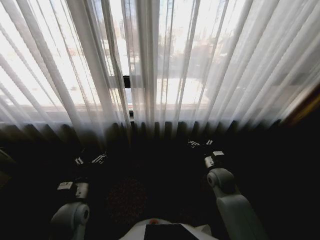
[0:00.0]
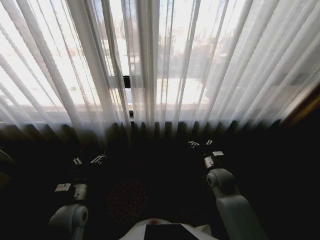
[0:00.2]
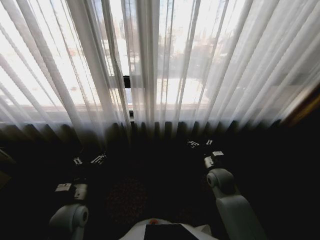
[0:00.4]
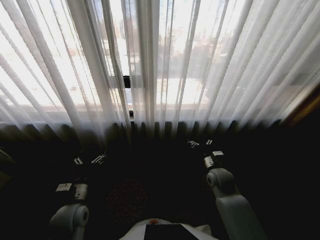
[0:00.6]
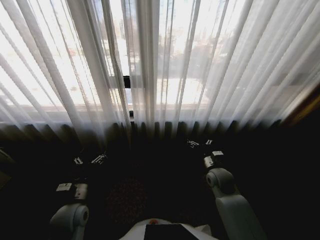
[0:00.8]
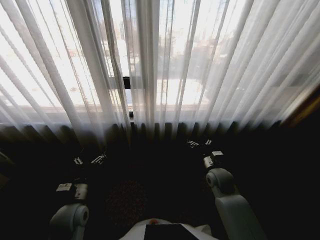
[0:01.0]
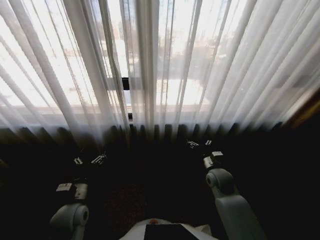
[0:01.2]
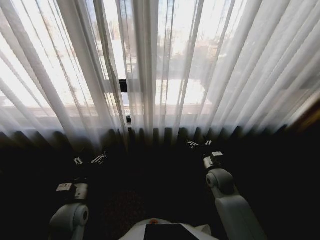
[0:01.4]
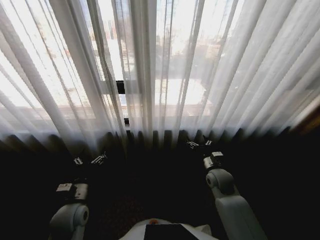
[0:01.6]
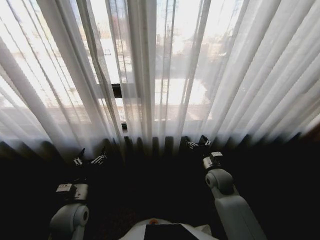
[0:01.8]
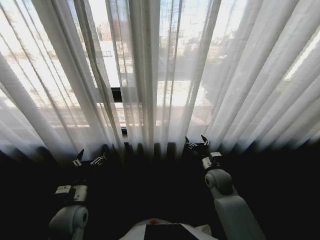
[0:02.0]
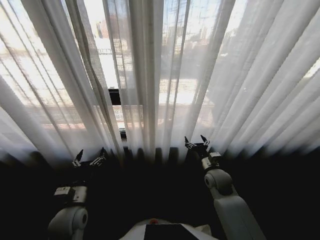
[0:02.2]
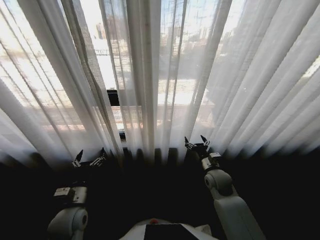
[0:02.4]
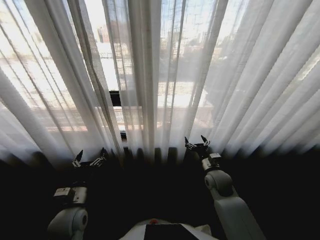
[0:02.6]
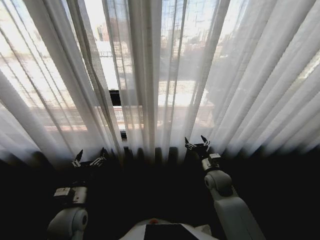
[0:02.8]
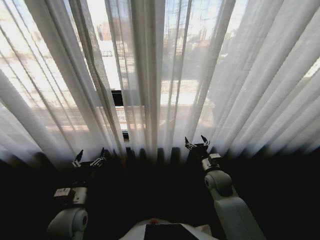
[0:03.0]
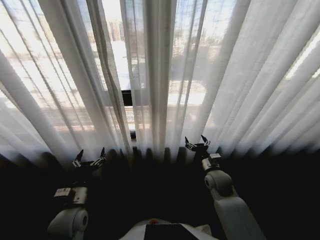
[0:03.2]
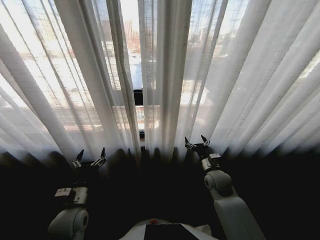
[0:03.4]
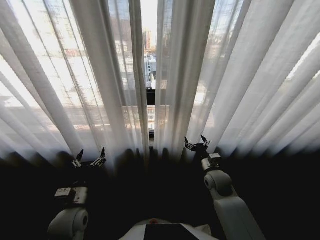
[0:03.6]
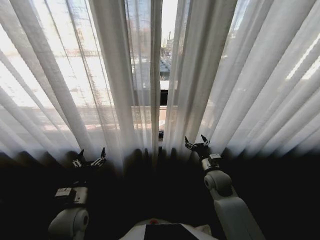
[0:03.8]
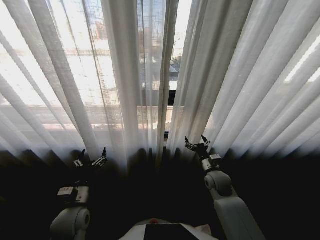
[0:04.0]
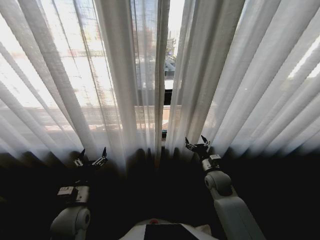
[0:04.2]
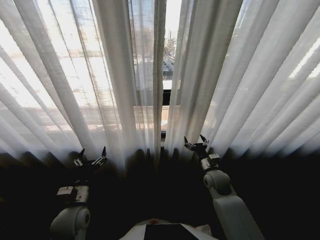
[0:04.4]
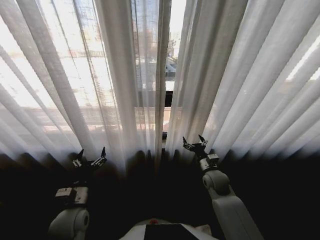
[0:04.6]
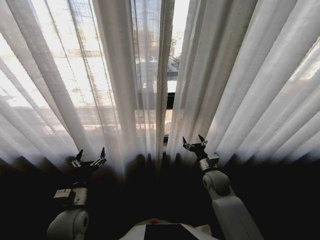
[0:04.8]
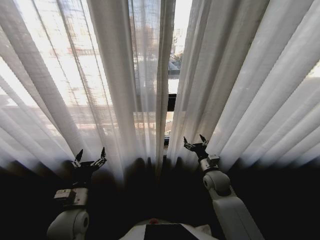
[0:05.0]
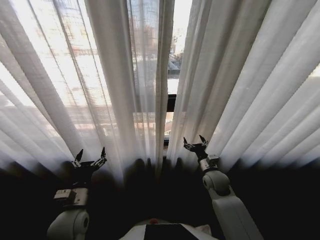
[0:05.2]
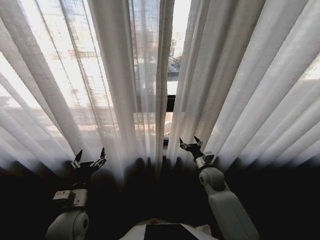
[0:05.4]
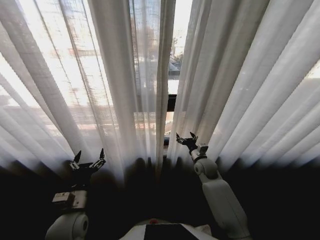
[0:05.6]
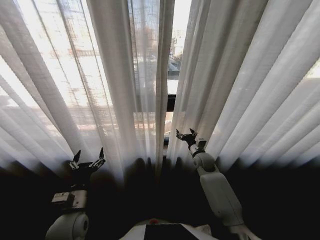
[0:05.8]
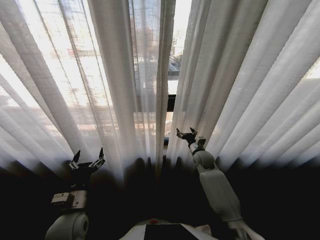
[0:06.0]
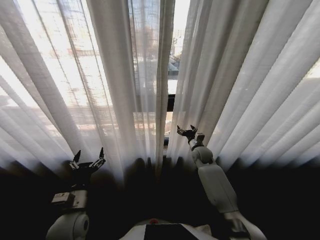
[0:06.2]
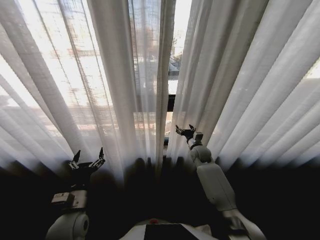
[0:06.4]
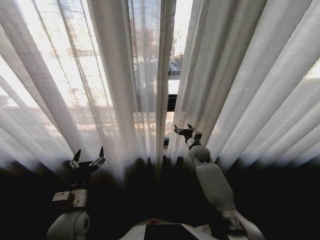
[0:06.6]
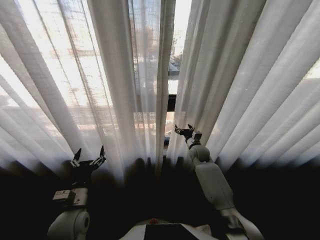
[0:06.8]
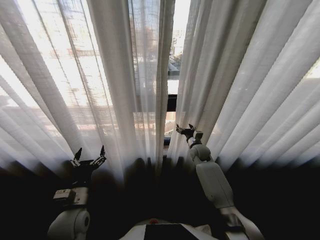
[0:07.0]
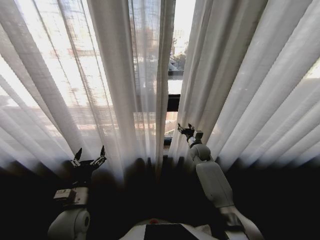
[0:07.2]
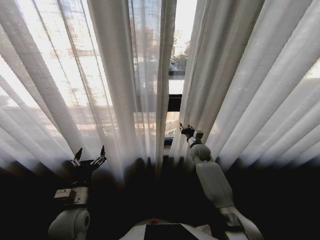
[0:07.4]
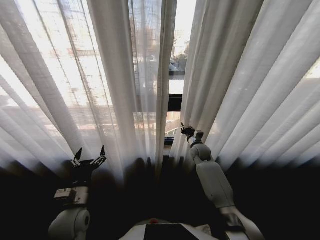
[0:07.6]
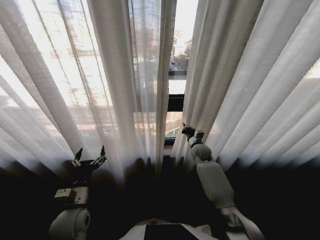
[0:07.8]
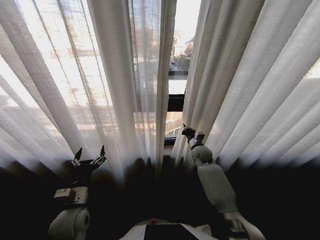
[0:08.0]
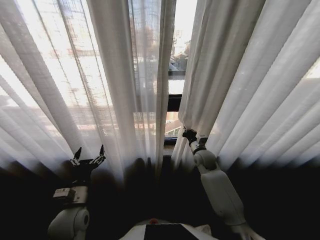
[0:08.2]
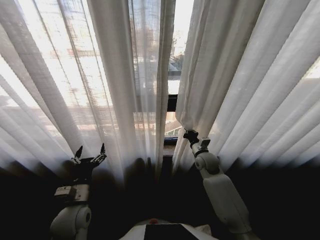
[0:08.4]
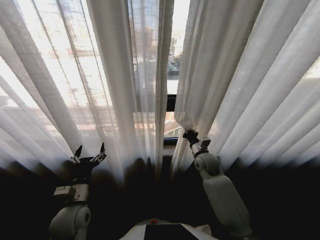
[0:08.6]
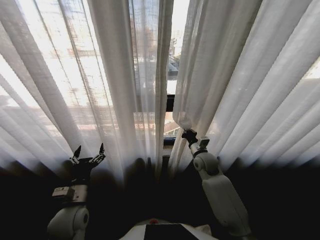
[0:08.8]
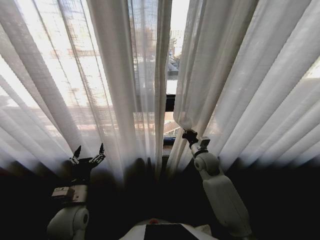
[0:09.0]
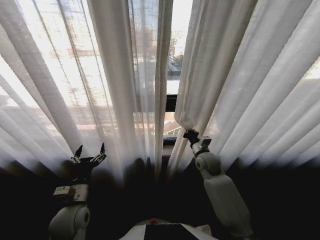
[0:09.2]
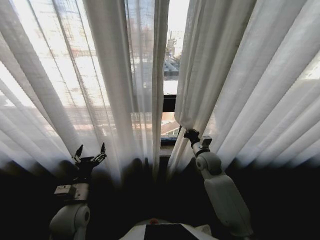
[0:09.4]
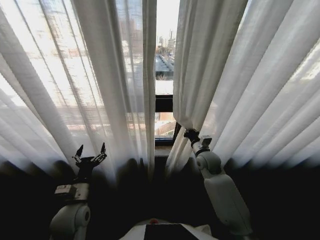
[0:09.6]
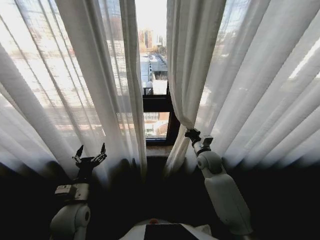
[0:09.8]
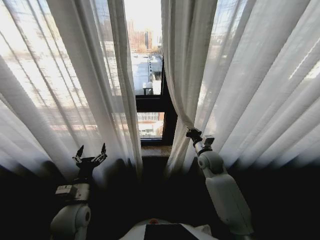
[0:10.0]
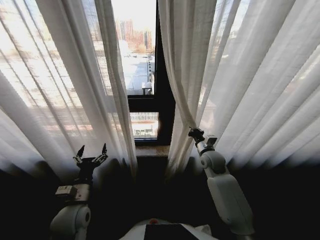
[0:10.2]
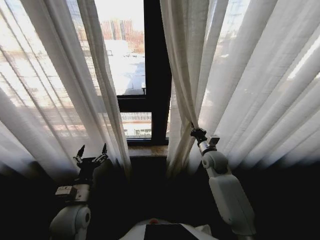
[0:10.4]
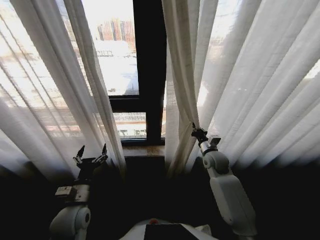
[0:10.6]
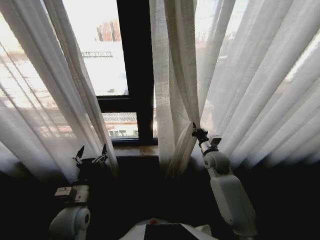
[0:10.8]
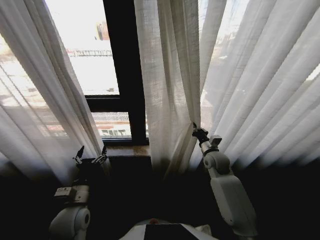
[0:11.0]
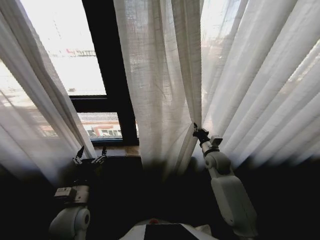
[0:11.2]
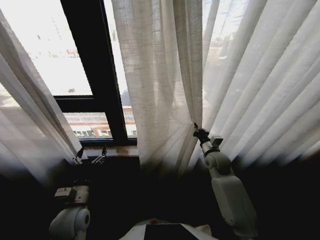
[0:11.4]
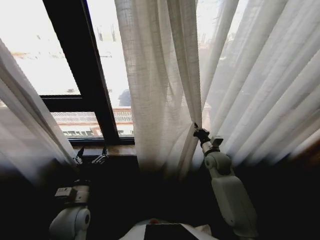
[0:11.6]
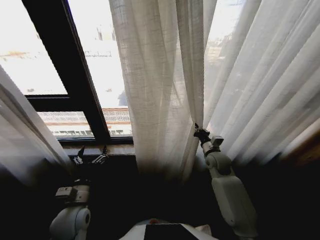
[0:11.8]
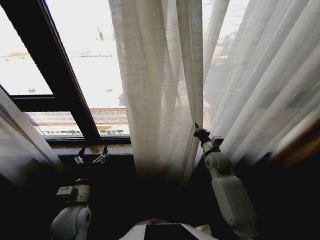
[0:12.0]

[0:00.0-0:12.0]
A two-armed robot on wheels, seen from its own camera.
Task of the whole recording: Open the curtains by pulling them apart, changing their state from closed to fully open.
0:04.4 to 0:06.0: The right gripper heads forward, covering approximately 10 cm.
0:06.0 to 0:07.6: The right gripper closes its fingers.
0:07.6 to 0:09.0: The right gripper travels backward by approximately 10 cm.

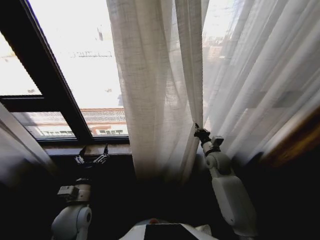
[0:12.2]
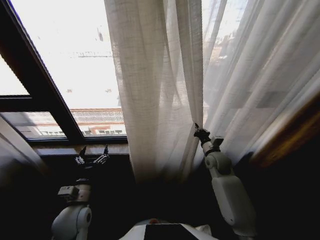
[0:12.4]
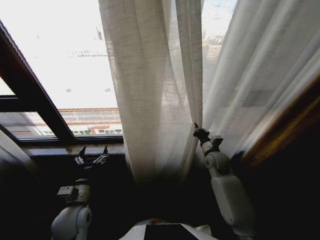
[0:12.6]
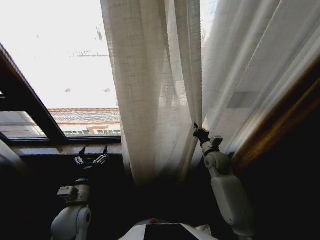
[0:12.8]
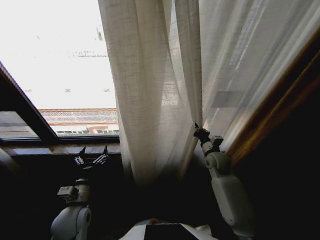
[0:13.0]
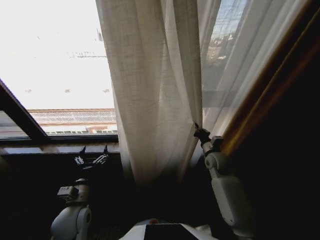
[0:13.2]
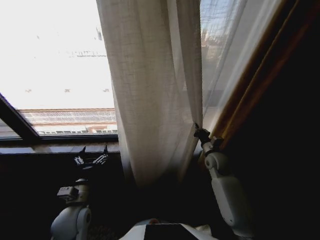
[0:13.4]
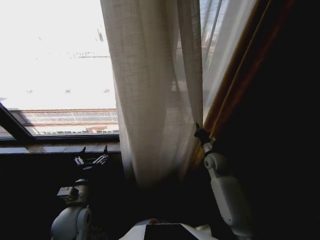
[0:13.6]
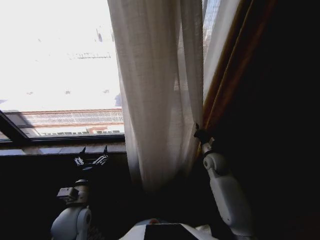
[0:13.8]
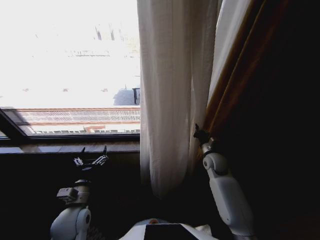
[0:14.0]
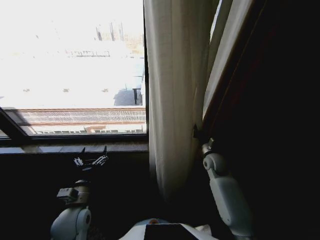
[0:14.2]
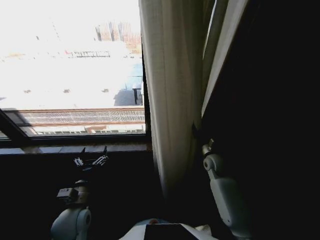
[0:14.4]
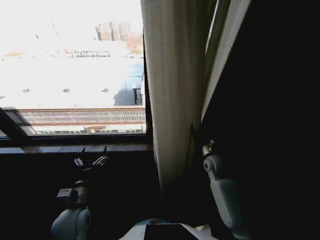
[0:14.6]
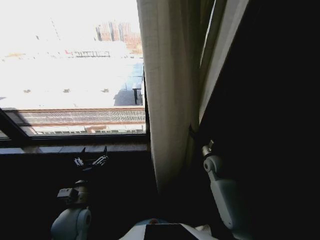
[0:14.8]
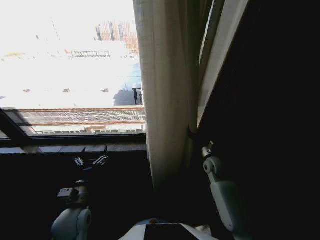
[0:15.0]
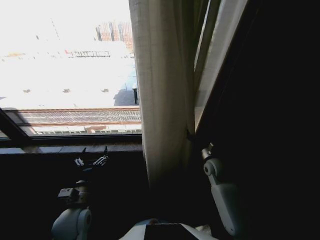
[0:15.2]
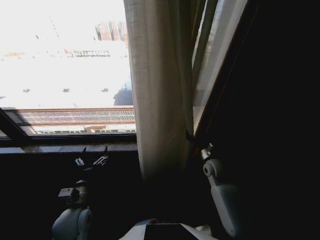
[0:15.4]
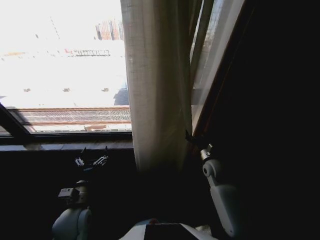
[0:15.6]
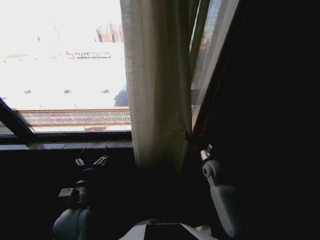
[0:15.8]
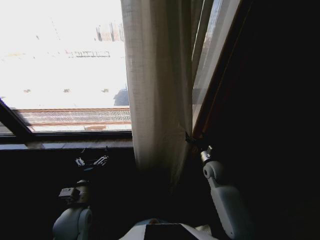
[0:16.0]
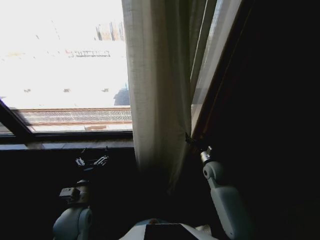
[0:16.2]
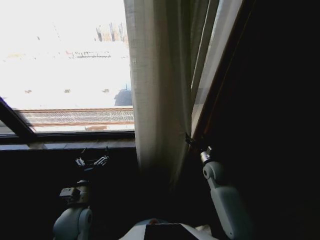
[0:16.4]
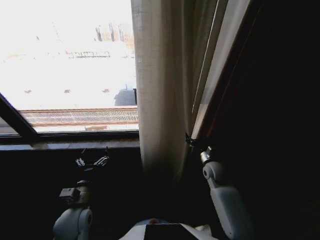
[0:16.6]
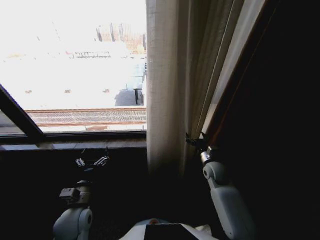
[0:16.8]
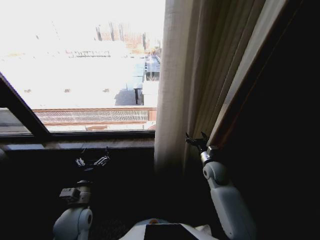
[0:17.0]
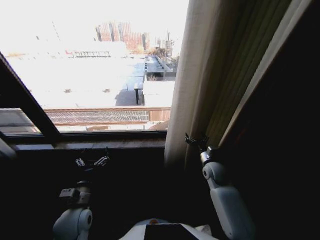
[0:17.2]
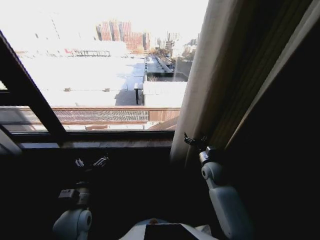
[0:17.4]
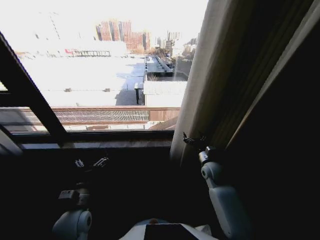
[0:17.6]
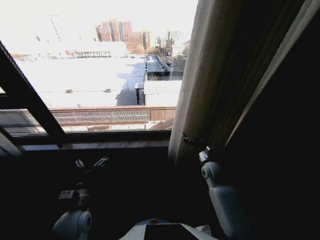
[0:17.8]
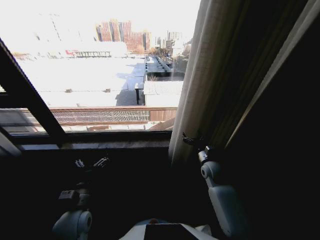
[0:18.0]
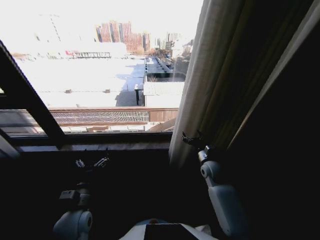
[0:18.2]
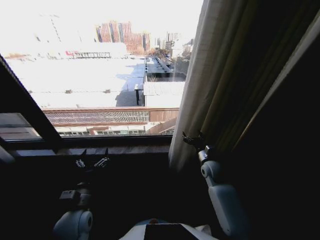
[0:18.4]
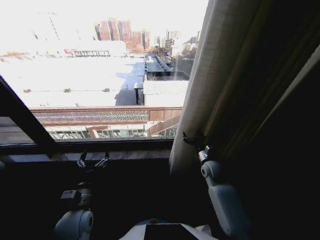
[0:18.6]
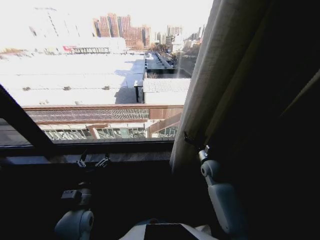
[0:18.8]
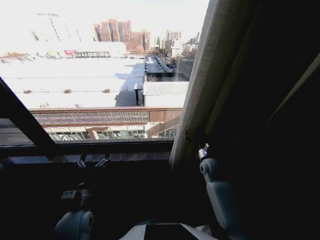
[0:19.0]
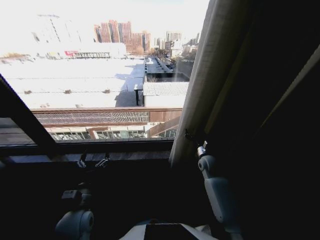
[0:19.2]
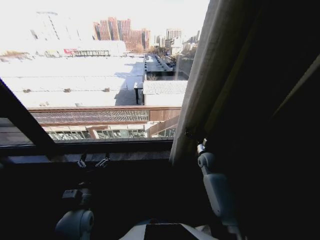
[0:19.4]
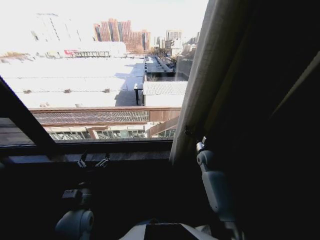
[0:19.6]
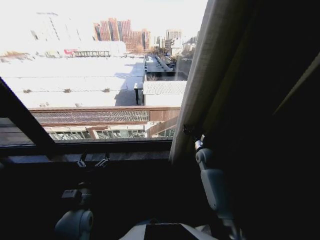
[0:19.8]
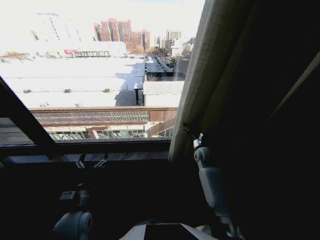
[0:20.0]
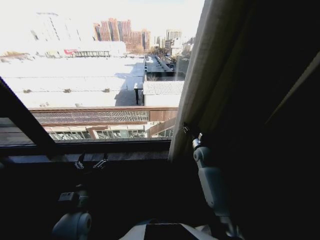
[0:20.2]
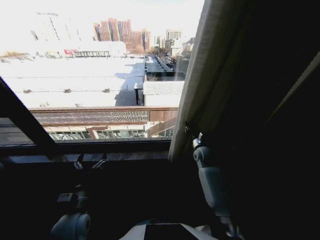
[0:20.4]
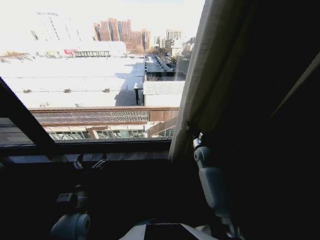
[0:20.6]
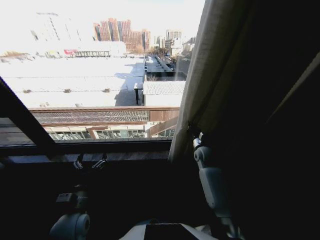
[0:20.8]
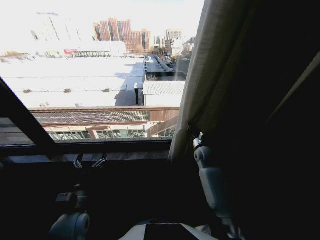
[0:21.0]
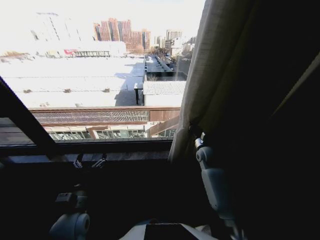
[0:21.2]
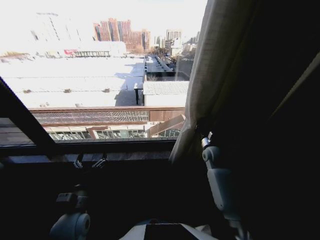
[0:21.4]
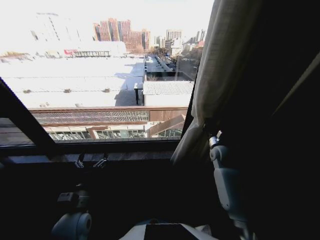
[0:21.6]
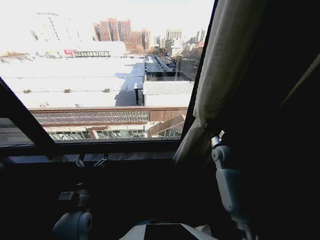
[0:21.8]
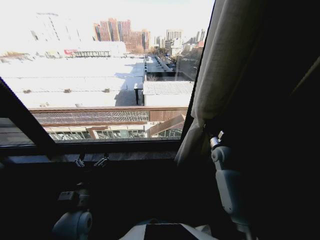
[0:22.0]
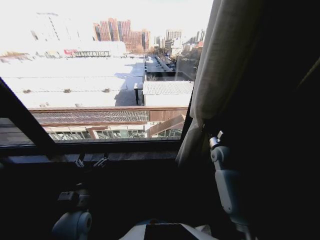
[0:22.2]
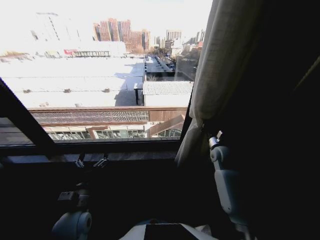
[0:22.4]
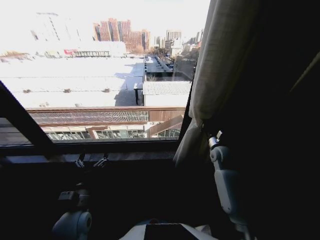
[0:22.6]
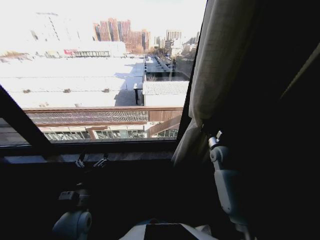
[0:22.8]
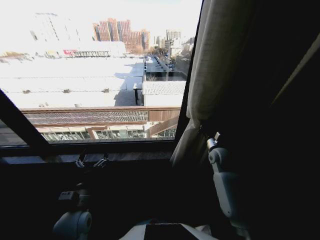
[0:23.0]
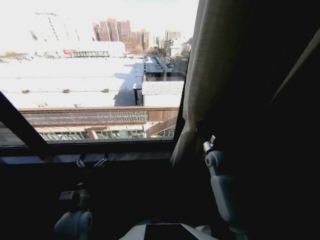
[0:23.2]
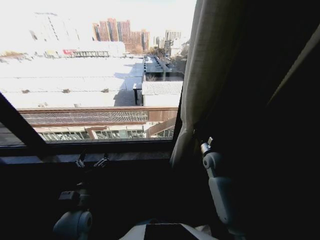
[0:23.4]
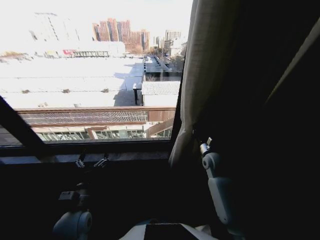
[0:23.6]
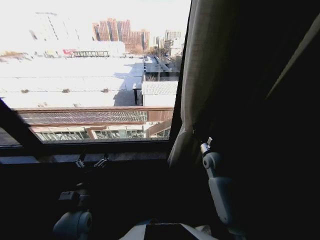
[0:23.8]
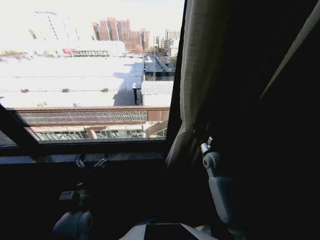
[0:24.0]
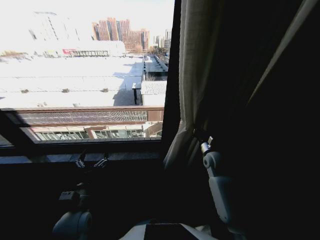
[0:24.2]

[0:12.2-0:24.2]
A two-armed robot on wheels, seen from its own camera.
Task of the whole recording: Open the curtains by pulling them apart, changing their state from closed to fully open.
0:13.8 to 0:15.2: The right gripper opens its fingers.
0:15.2 to 0:16.6: There are only small adjustments of the grippers.
0:18.2 to 0:19.8: The right gripper shifts about 5 cm forward.
0:19.8 to 0:21.2: The right gripper closes.
0:21.2 to 0:22.6: The right gripper travels to the right by about 5 cm.
0:22.6 to 0:24.2: The grippers move only a little.
